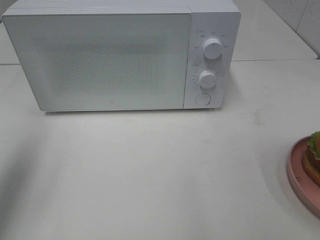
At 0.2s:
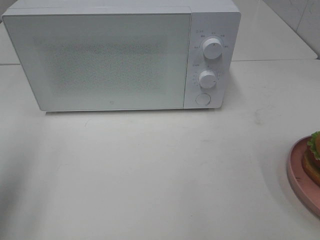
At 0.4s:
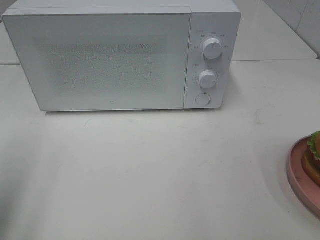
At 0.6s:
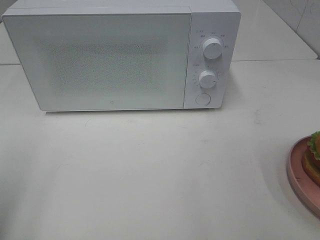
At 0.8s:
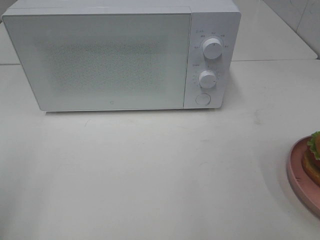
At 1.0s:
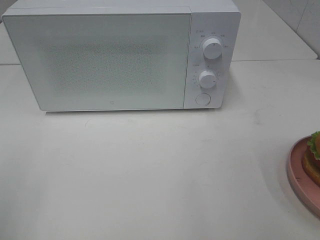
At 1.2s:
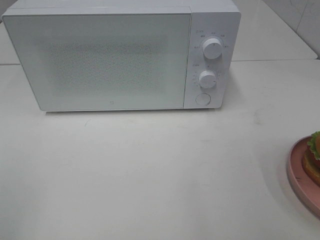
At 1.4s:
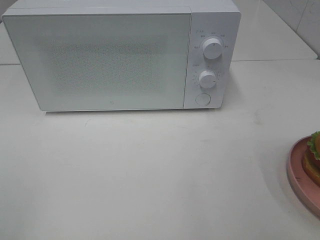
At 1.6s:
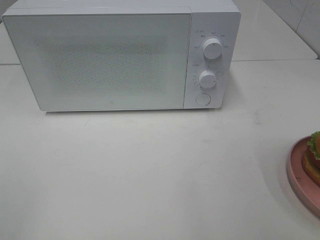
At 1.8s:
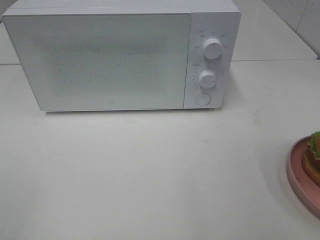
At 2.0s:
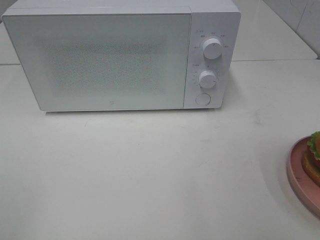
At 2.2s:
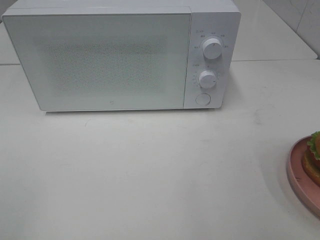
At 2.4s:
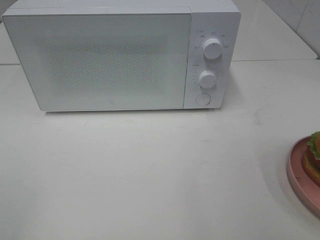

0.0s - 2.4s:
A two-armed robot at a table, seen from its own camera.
Task of the whole recording: Heat the burger.
0.0s - 1.2s: The left gripper heads backward, covering approximately 20 cm.

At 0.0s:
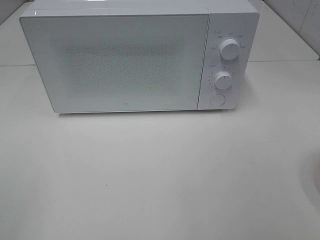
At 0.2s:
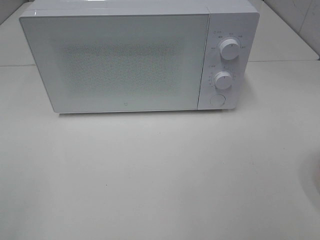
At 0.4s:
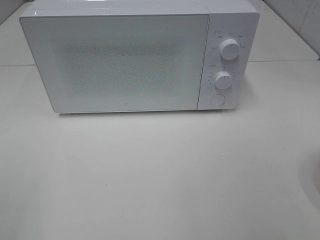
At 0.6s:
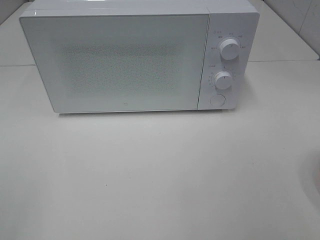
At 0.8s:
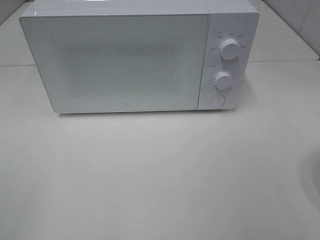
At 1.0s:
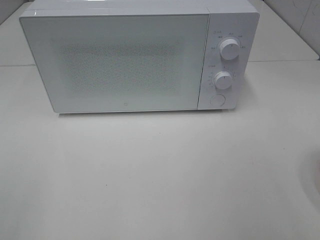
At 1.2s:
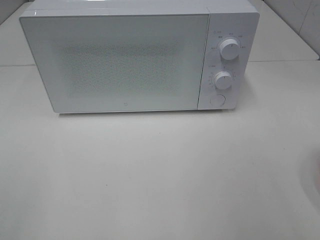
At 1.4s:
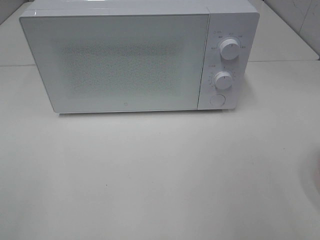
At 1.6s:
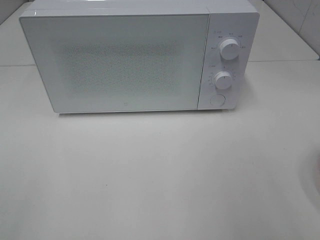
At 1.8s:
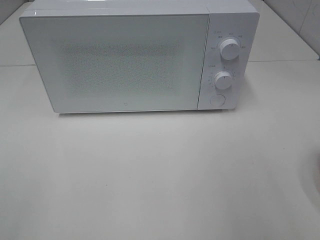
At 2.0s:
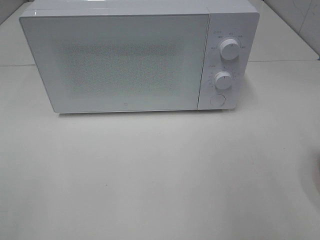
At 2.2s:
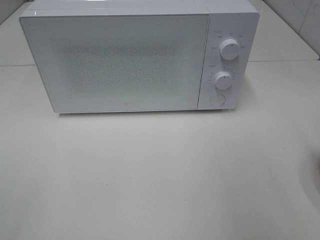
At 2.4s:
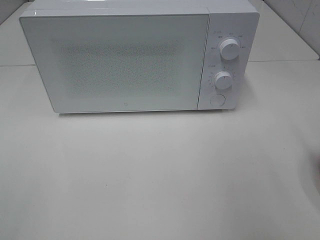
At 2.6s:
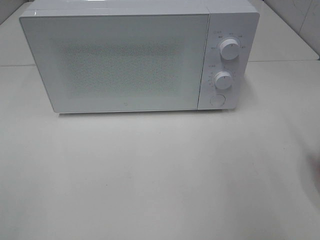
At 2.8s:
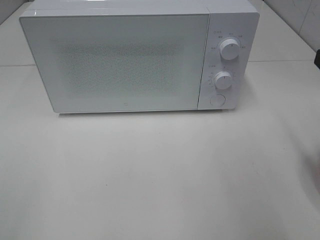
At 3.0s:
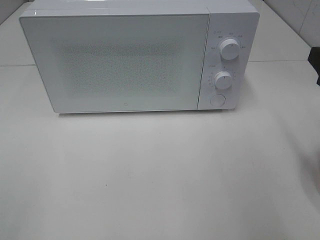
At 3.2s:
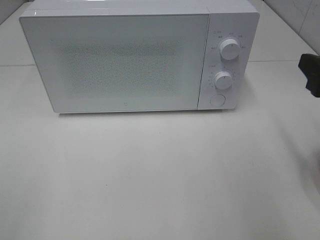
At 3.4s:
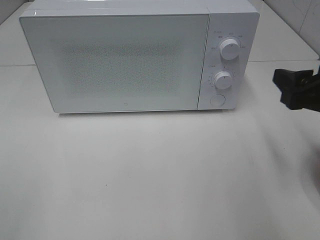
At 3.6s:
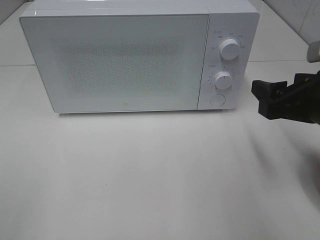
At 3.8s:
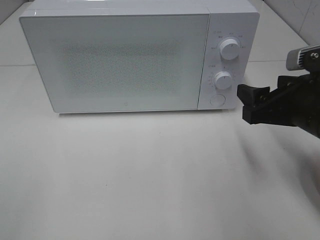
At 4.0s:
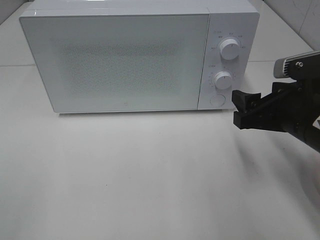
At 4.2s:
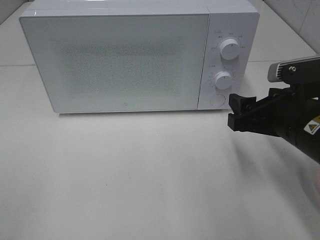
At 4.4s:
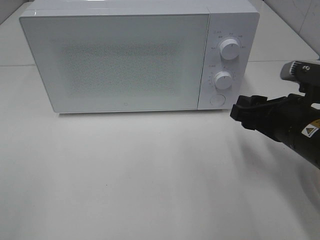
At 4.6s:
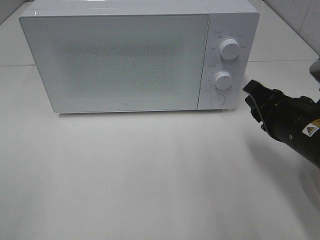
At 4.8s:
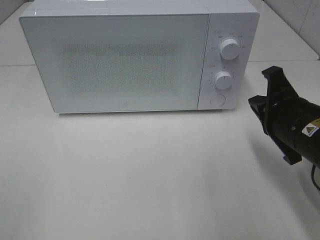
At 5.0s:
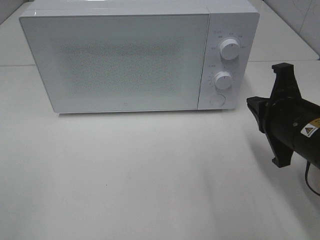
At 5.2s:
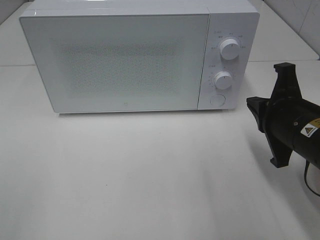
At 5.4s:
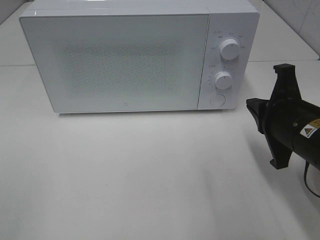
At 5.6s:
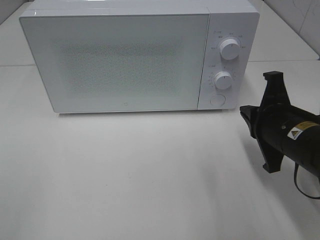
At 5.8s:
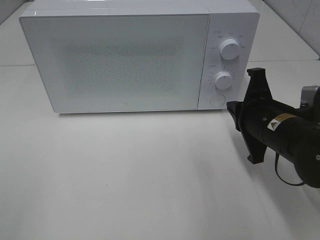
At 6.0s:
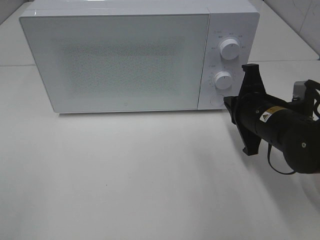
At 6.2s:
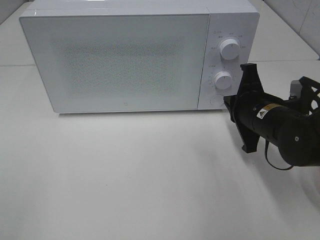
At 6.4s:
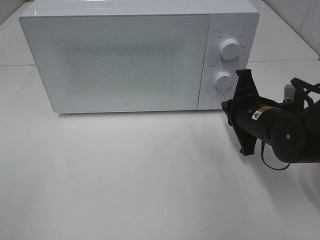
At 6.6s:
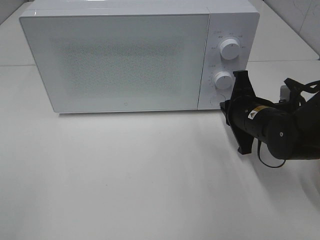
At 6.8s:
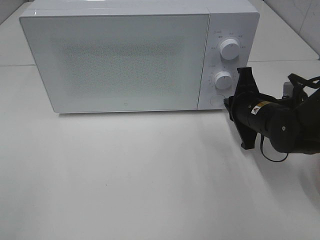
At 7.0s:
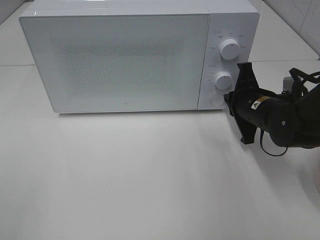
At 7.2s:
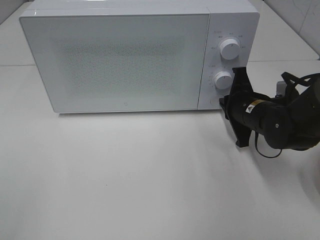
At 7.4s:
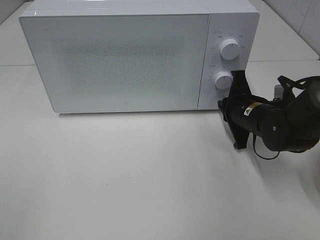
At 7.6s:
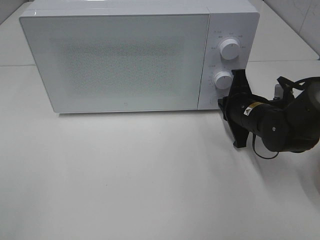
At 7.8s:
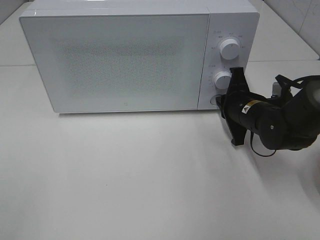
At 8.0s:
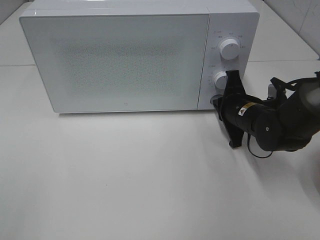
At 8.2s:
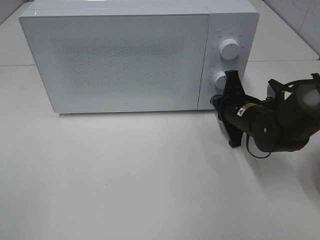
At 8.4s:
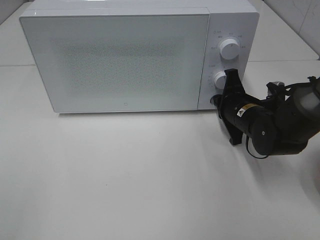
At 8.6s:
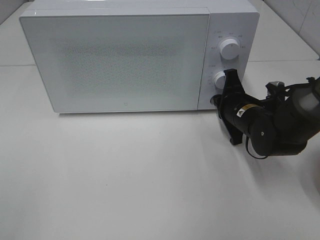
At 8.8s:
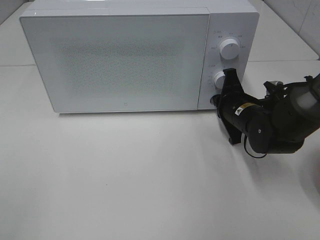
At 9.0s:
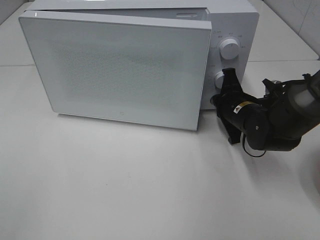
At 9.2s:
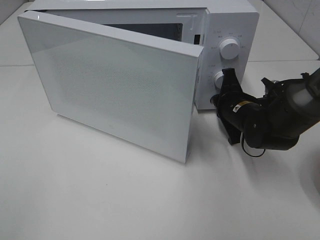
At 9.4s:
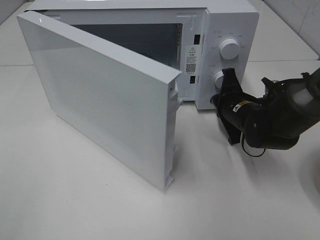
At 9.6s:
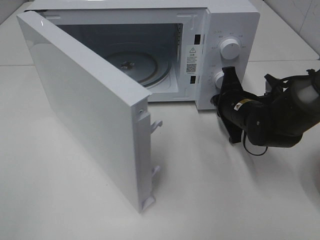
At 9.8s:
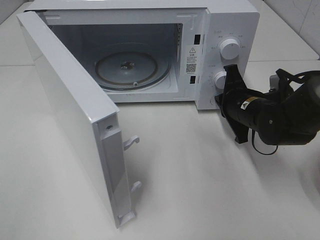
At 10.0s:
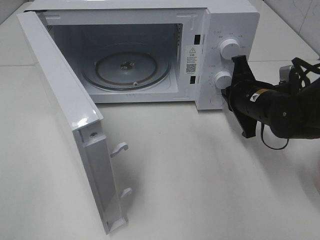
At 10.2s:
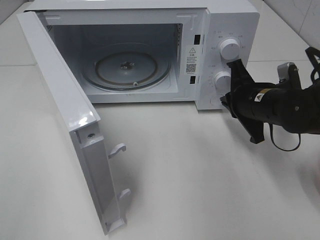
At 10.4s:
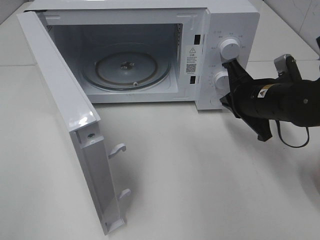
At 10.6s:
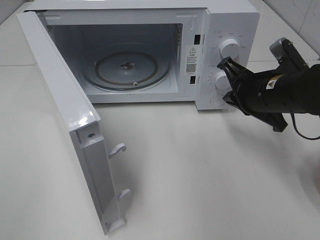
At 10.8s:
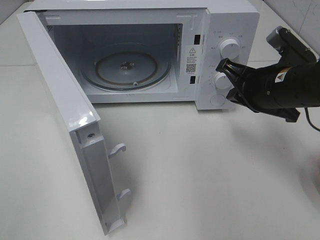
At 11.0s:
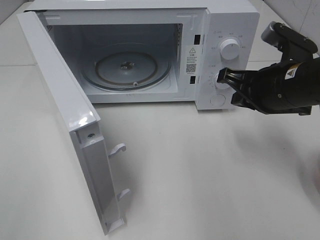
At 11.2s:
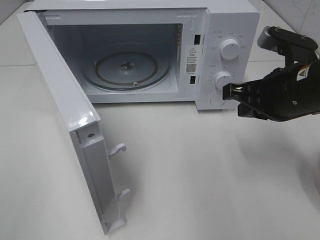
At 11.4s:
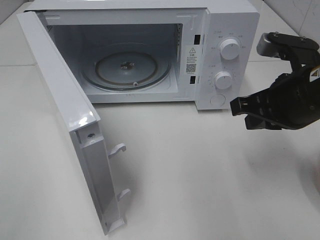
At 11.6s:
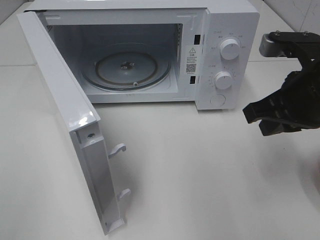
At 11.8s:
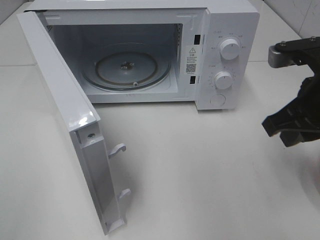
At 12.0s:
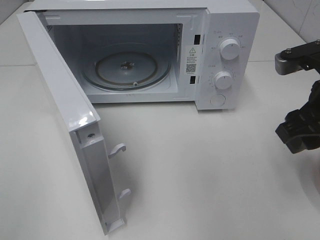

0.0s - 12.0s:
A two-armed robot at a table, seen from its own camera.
Task of the whole recording: Heat the burger.
Step, 0.0s - 9.8s: Right hand: press the switch.
1.6s - 3.0s: The right gripper travels forward and downward by some 10 cm.
3.0s - 4.4s: The right gripper is displaced downward and to the left by approximately 10 cm.
4.4s - 6.0s: The right gripper is displaced forward by about 5 cm, and closes its fingers.
6.0s - 7.6s: The right gripper is displaced forward by about 5 cm.
7.6s - 9.0s: The grippers make only small movements.
9.0s - 10.4s: The right gripper goes about 5 cm upward.
10.4s - 12.0s: The right gripper is displaced upward and backward by approximately 10 cm, and opens.

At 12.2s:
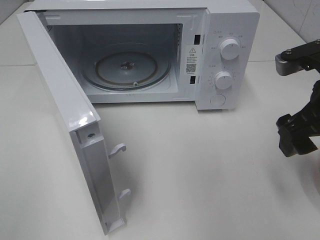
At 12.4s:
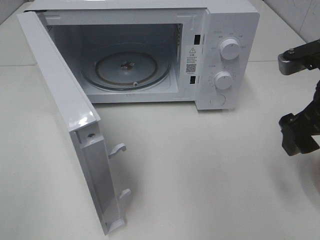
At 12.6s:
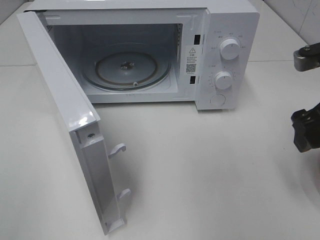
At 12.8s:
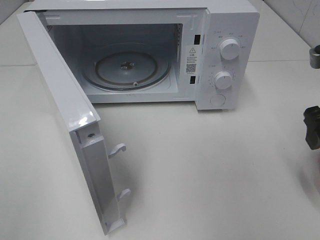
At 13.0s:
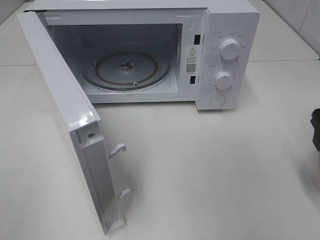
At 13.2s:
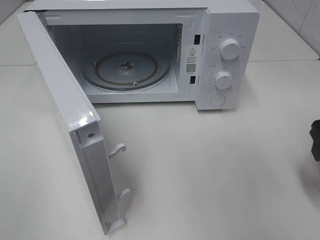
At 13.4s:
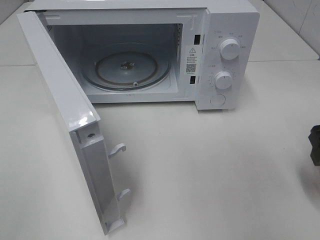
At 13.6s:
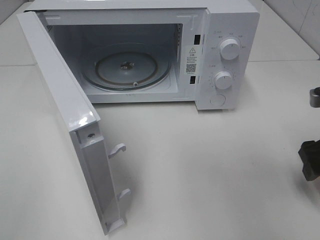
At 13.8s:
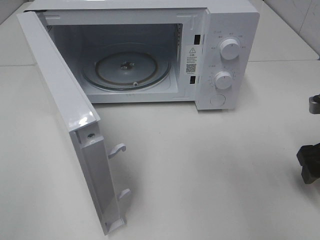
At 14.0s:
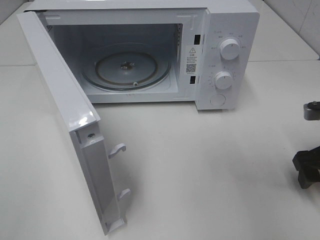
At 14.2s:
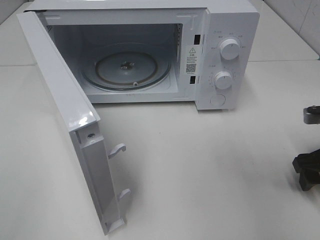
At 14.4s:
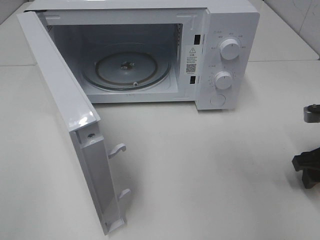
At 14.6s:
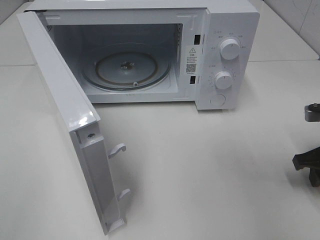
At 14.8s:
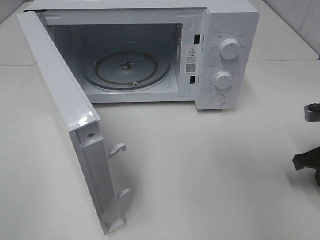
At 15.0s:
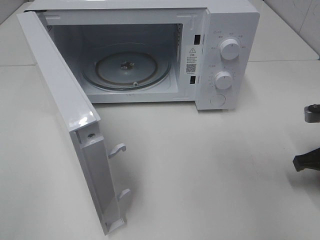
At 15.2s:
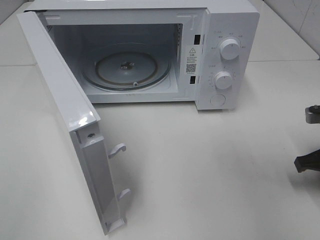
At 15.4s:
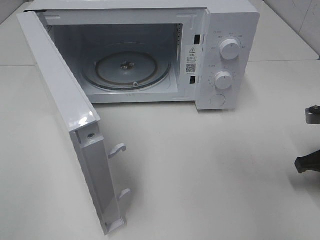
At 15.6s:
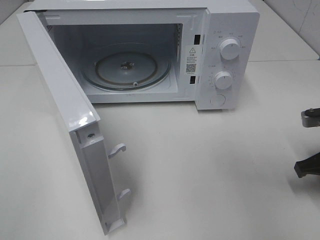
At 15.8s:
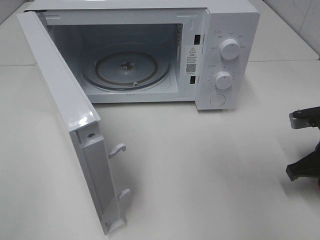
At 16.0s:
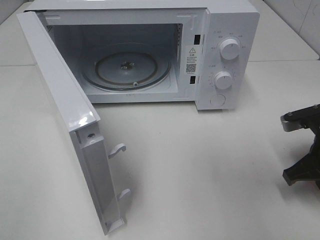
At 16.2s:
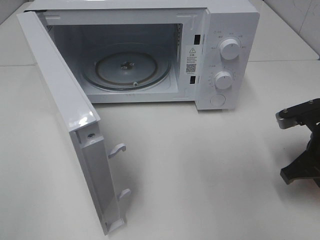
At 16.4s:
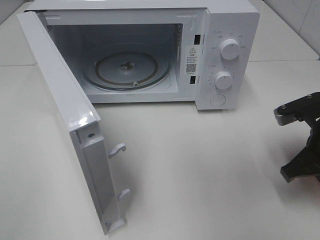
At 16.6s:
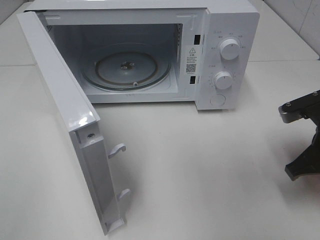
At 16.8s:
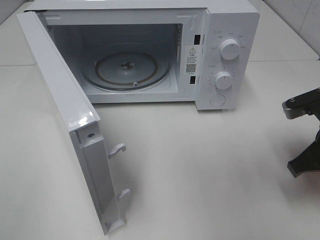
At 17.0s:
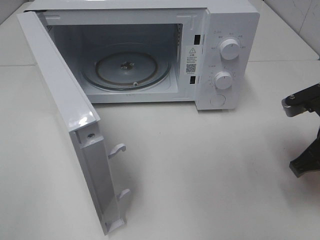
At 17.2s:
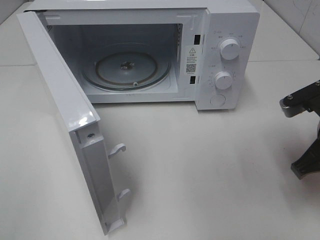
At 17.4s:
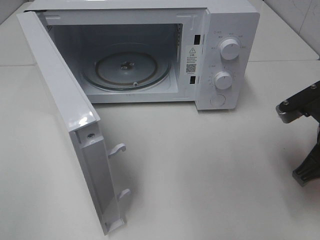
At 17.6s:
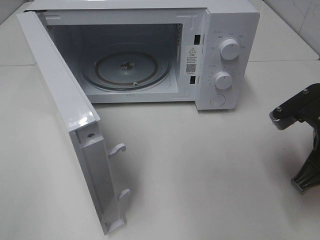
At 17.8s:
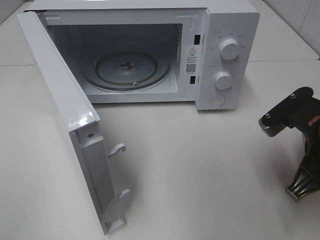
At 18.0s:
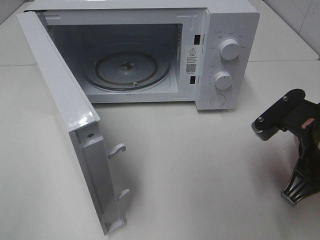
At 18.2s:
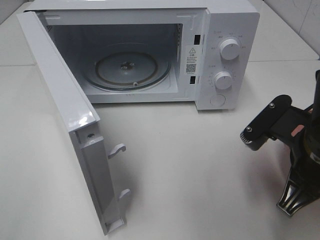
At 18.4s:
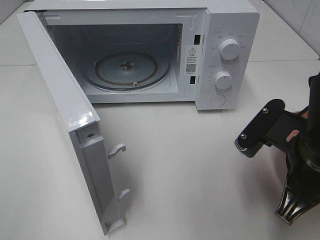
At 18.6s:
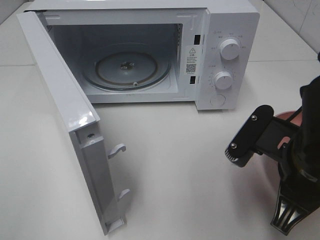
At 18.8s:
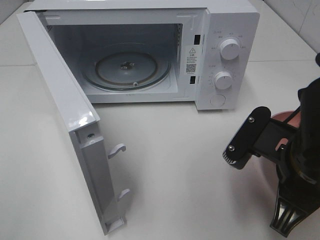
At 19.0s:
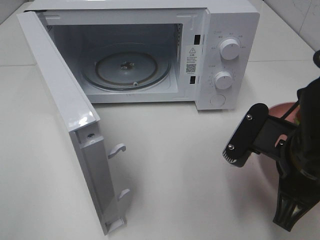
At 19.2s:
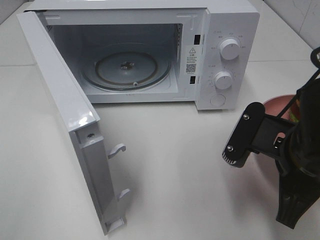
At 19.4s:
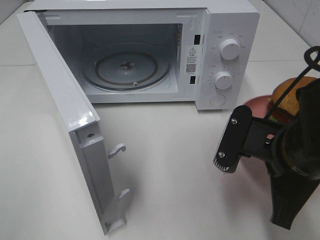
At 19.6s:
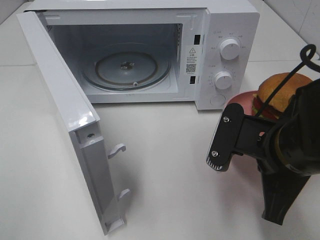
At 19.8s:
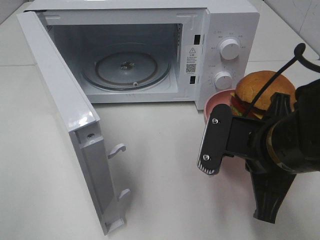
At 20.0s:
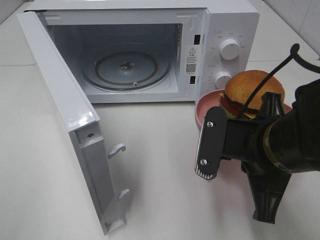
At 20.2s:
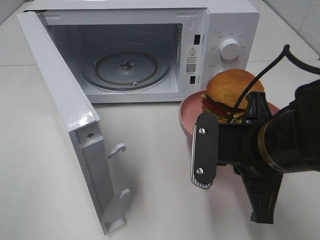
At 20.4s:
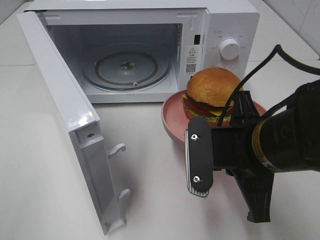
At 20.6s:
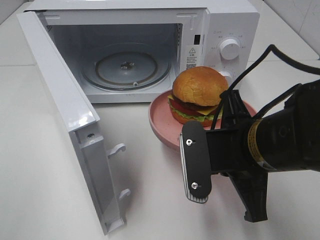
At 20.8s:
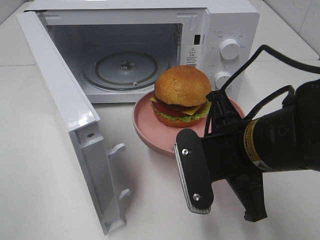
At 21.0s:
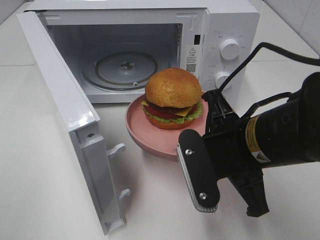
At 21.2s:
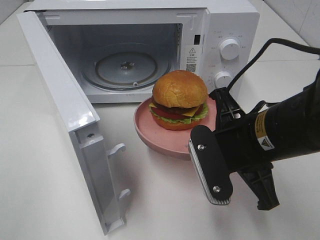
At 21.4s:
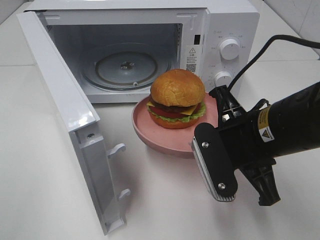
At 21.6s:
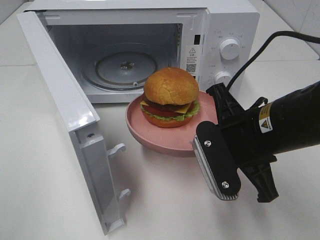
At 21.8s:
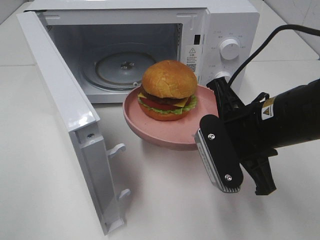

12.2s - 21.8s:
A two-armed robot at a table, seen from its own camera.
Task of the whole recording: Heat the burger.
Step, 12.2s - 15.2s: Right hand: grab the plate with the hamburger.
12.2s - 13.8s: The right gripper is displaced downward and to the right by some 10 cm.
13.8s - 15.4s: The right gripper closes up.
15.4s - 17.0s: The right gripper heads to the left and upward, covering about 10 cm.
17.0s - 18.6s: The right gripper goes roughly 10 cm to the left and backward.
